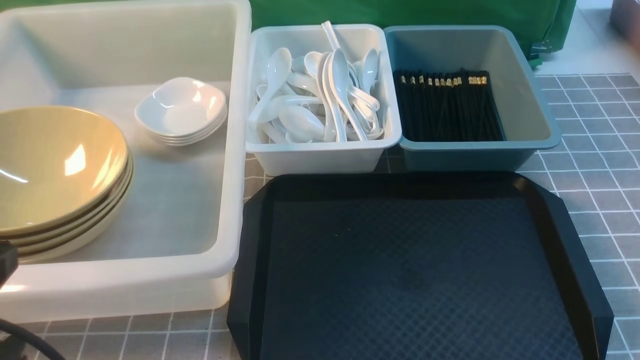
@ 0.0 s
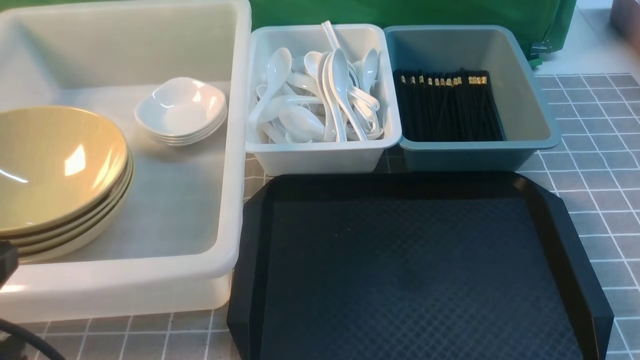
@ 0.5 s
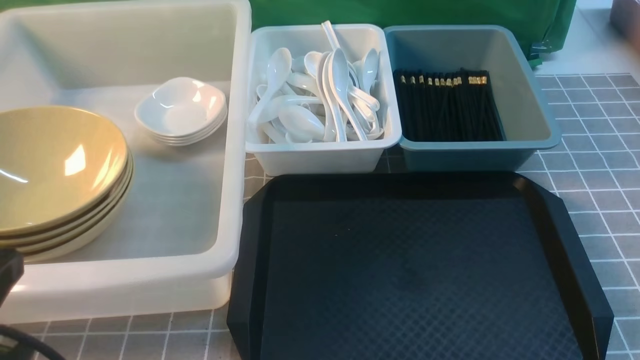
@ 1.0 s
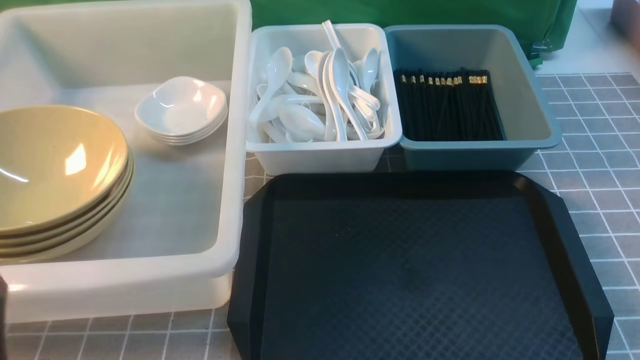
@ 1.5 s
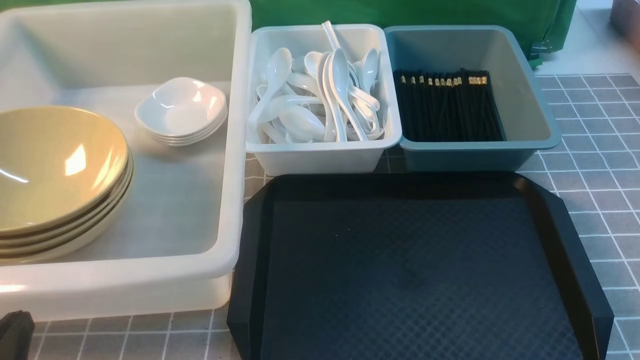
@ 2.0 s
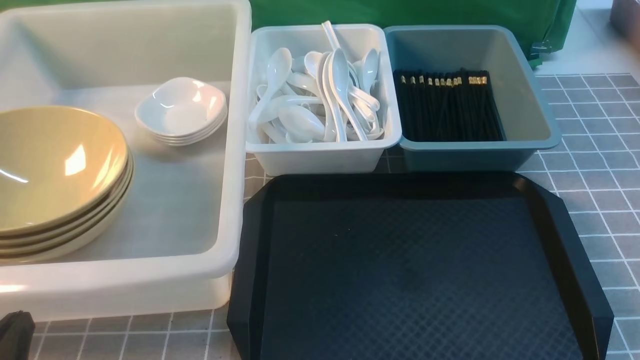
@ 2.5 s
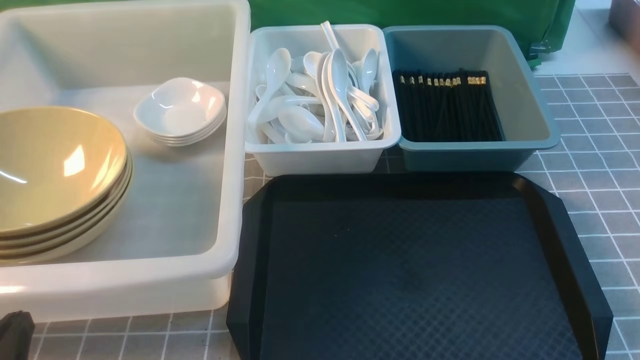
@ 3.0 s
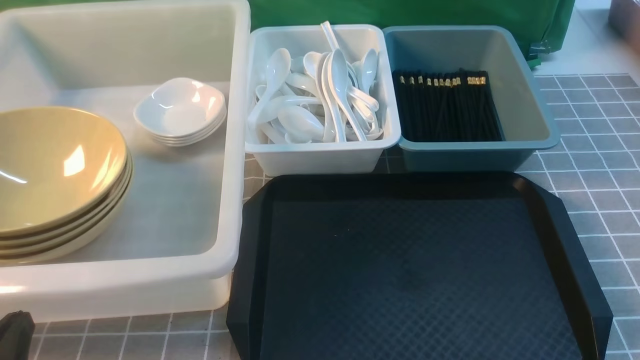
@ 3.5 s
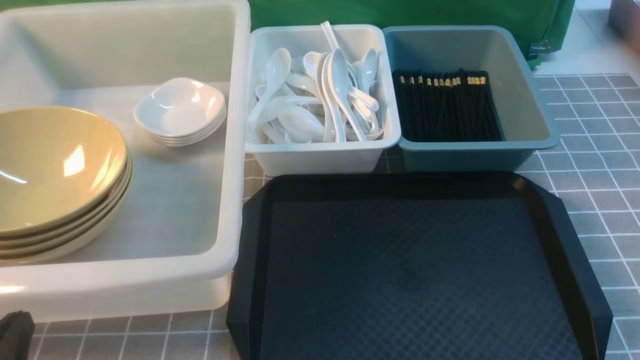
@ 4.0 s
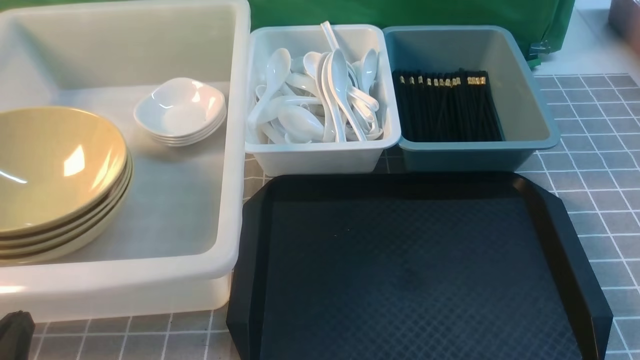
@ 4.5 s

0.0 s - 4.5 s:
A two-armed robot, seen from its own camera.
Task of the whole recording: on grey table put chopsticks spoon bowls plates into blue grey white boxes.
0.0 s - 2.0 s: The left gripper heads downward, covering approximately 15 cm.
2.0 s - 4.5 s: Both grippers stay put.
